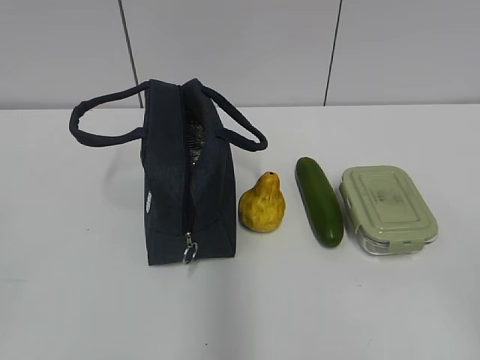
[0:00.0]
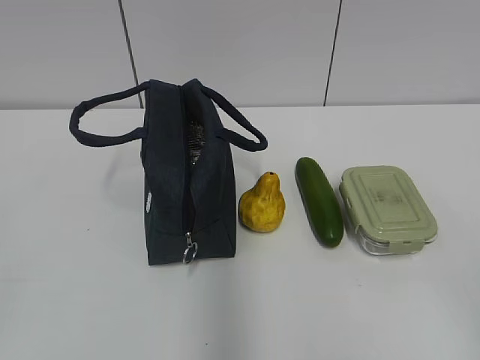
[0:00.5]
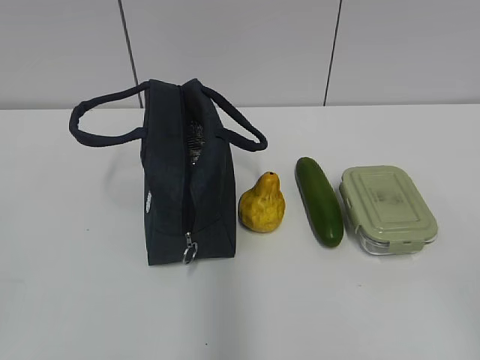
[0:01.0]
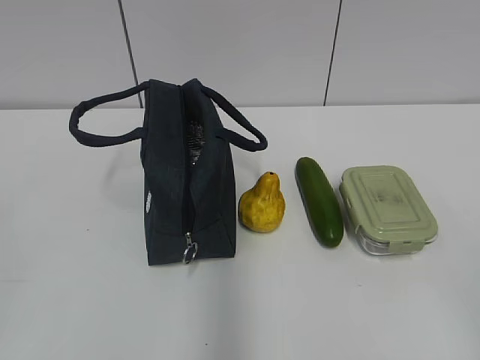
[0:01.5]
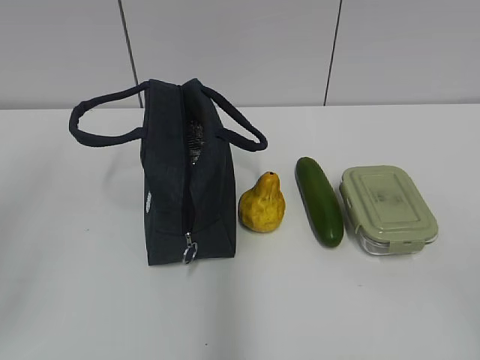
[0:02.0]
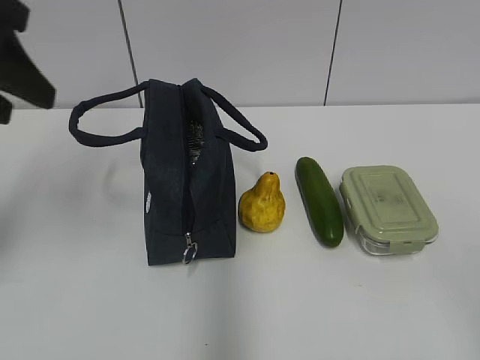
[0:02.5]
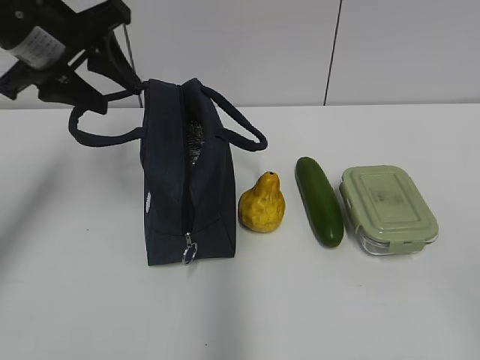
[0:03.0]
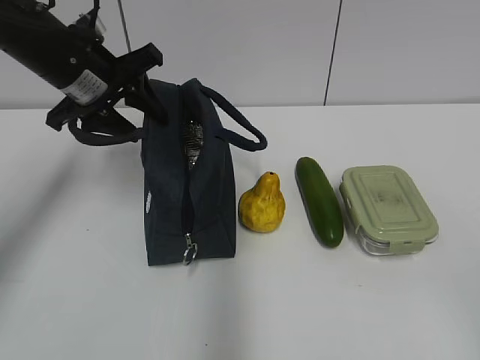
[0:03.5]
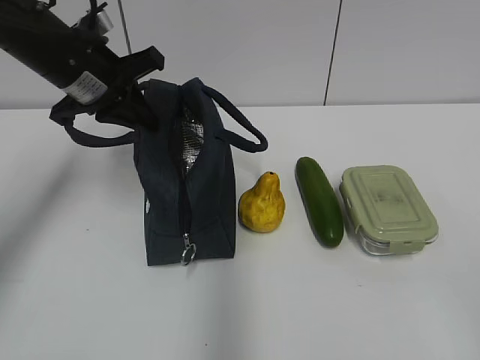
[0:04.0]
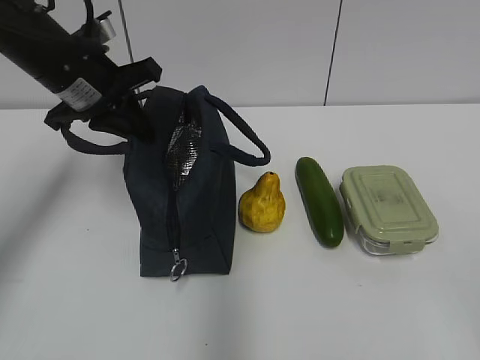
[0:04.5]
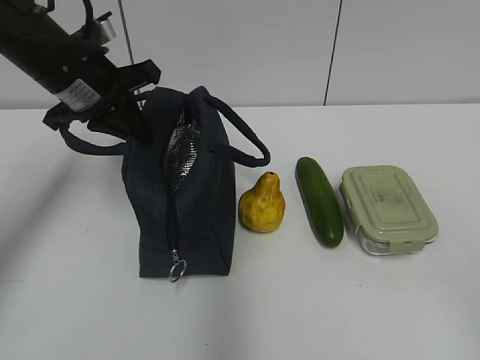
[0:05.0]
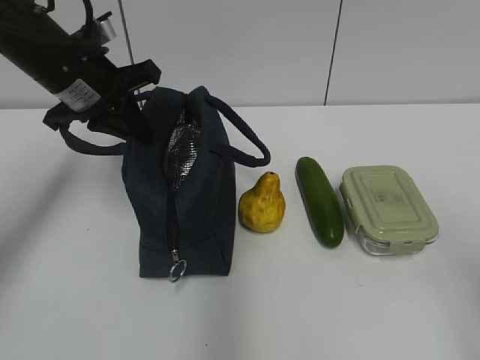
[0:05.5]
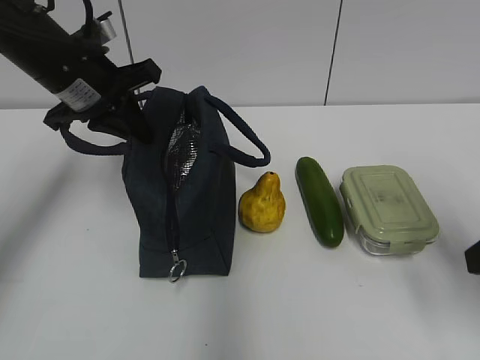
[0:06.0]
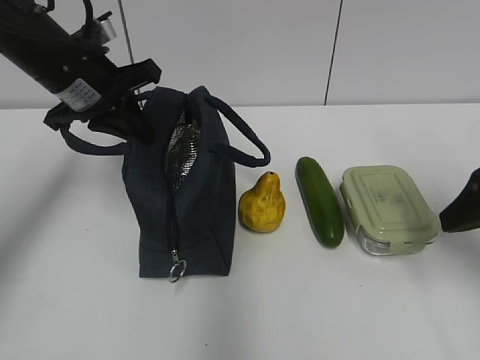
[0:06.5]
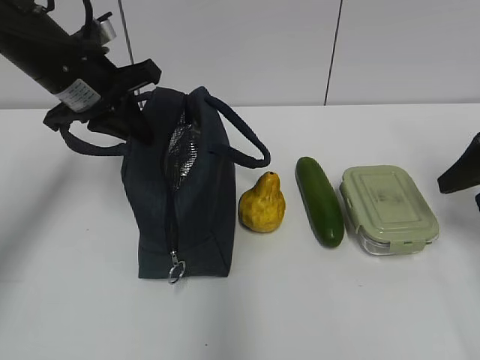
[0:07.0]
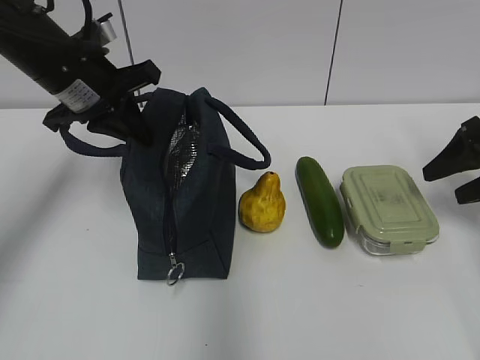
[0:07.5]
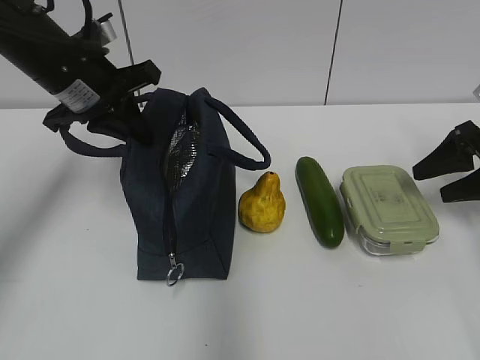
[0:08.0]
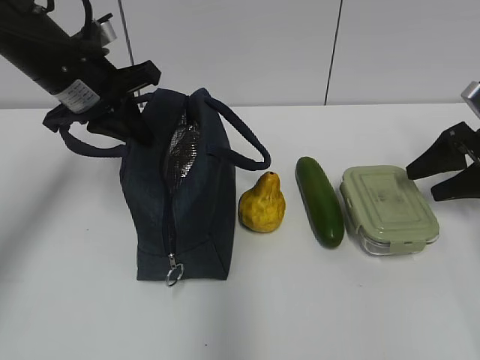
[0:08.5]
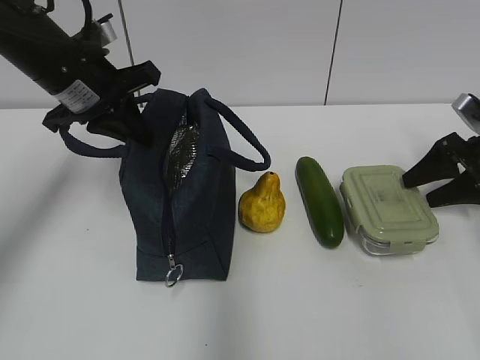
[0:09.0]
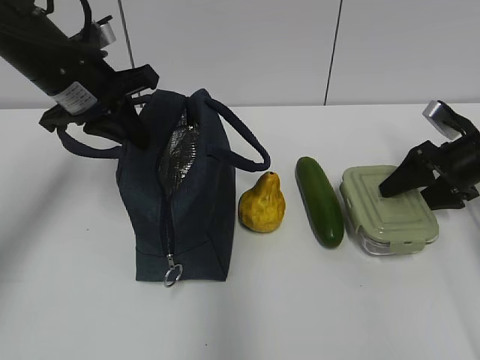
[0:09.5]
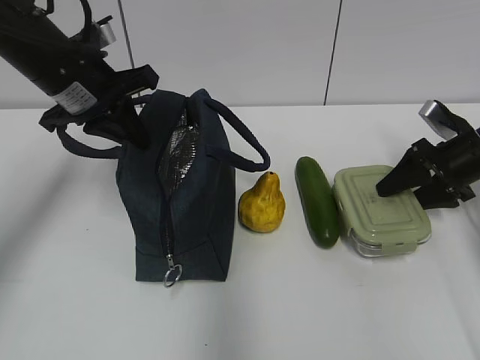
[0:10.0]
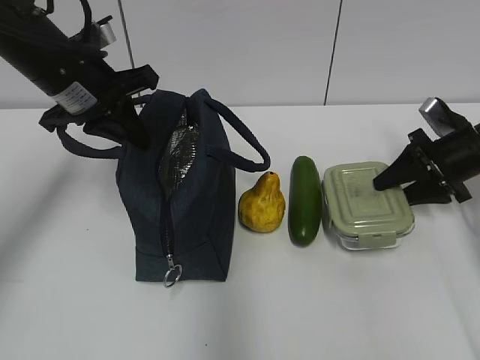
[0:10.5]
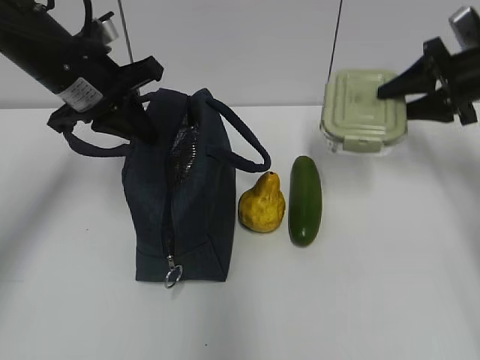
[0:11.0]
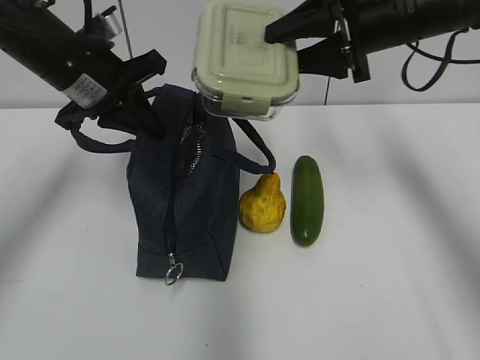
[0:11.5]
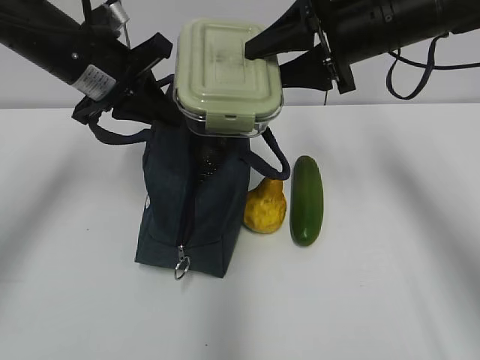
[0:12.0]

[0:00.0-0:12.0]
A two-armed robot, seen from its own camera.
0:02.0 to 0:04.0: The left gripper moves forward, some 30 cm, and closes.
0:04.0 to 0:06.0: The right gripper heads forward, covering about 20 cm.
0:06.0 to 0:08.0: The right gripper moves forward and to the right, approximately 20 cm.
0:08.0 to 0:10.0: The right gripper changes place by some 5 cm.
0:10.0 to 0:12.0: The right gripper shifts roughly 25 cm to the left and upward.

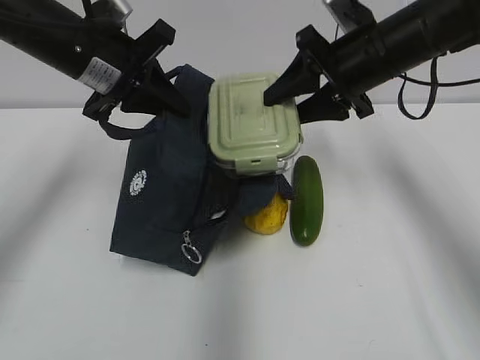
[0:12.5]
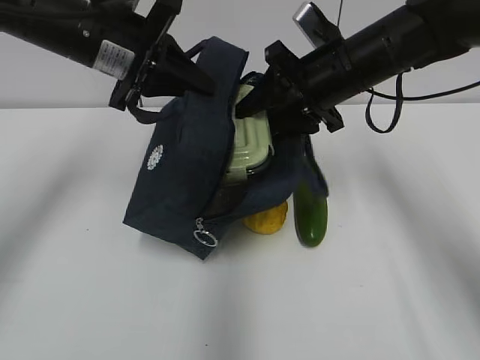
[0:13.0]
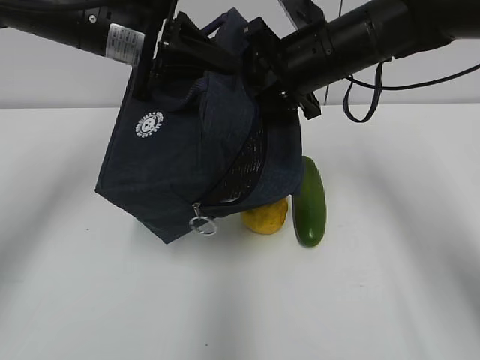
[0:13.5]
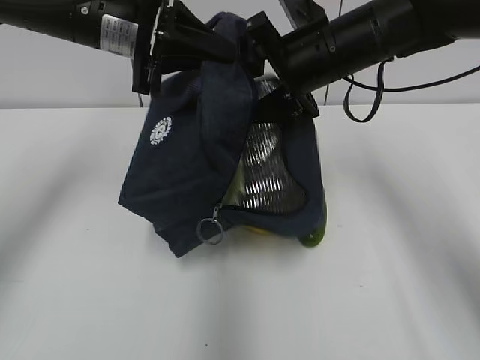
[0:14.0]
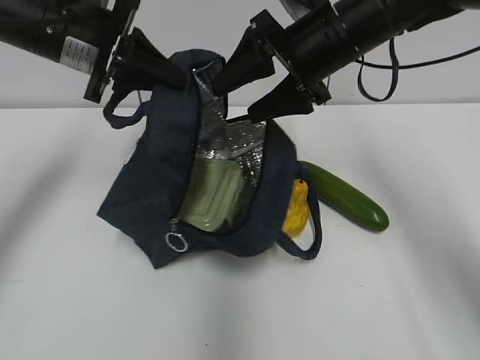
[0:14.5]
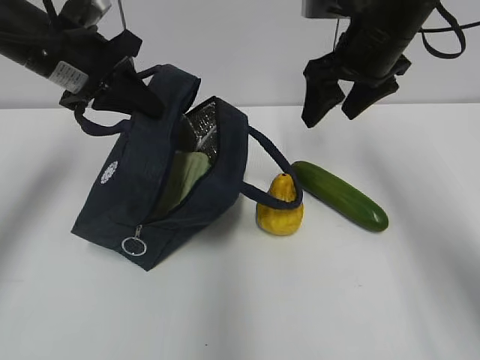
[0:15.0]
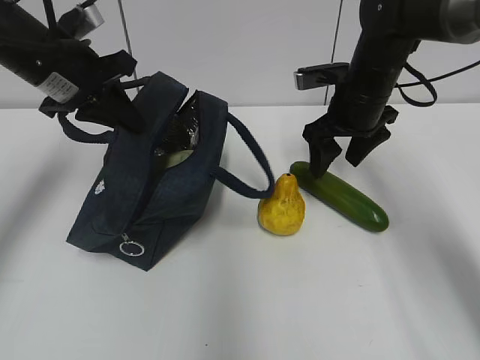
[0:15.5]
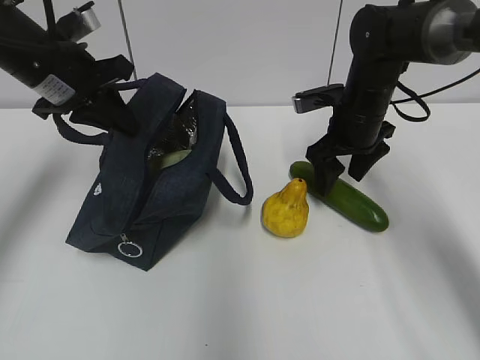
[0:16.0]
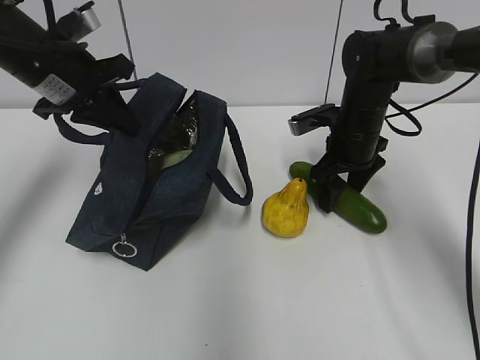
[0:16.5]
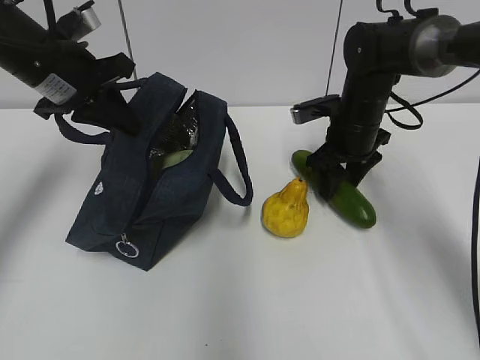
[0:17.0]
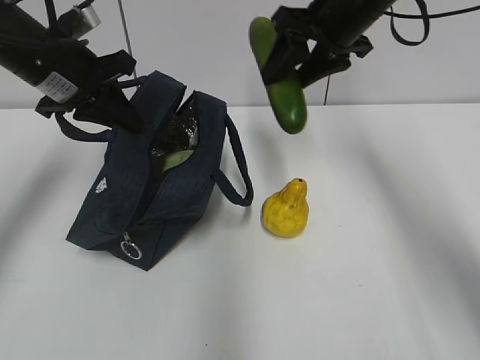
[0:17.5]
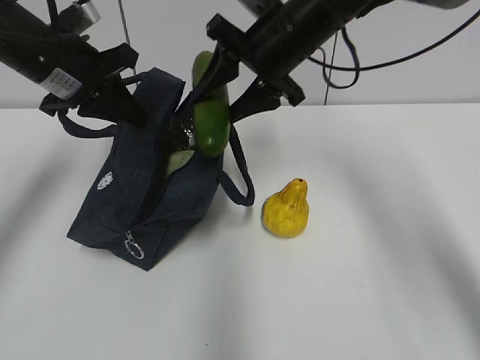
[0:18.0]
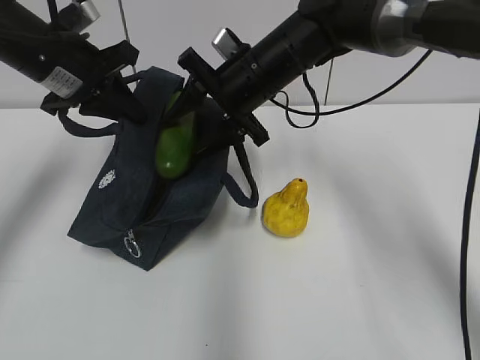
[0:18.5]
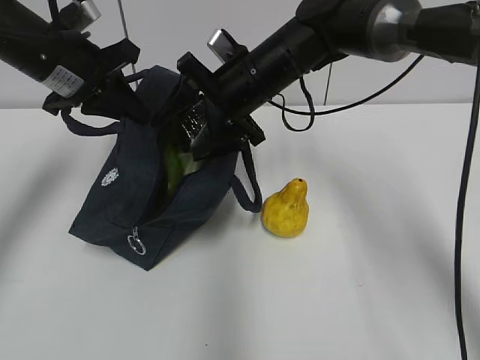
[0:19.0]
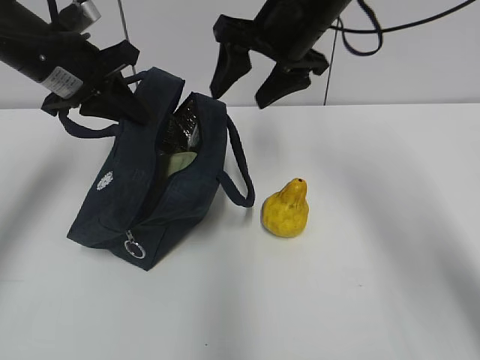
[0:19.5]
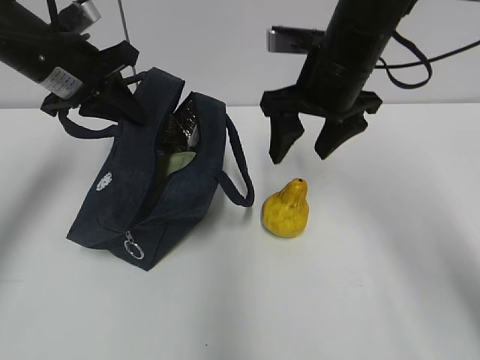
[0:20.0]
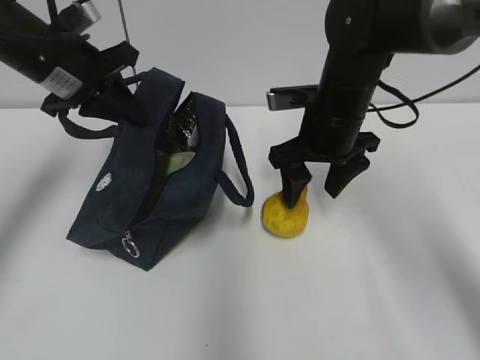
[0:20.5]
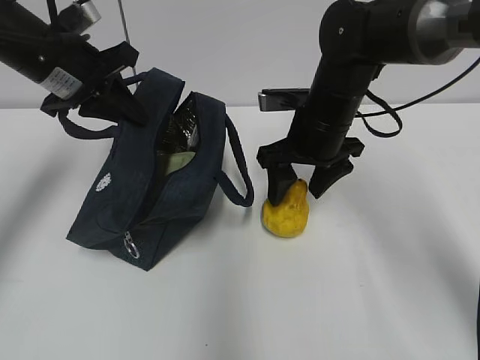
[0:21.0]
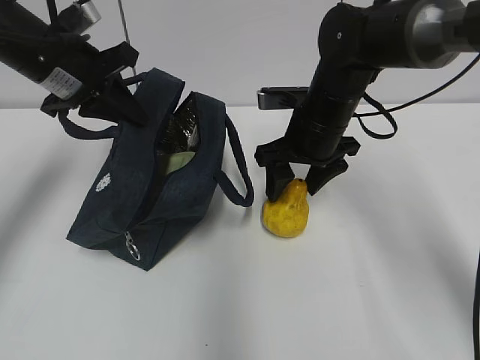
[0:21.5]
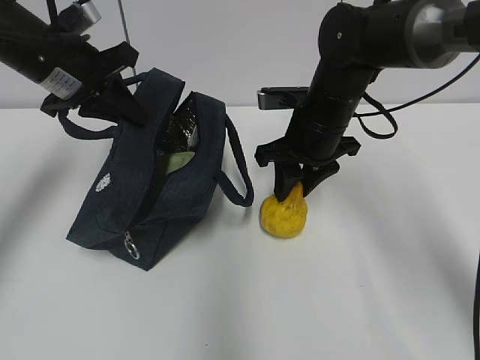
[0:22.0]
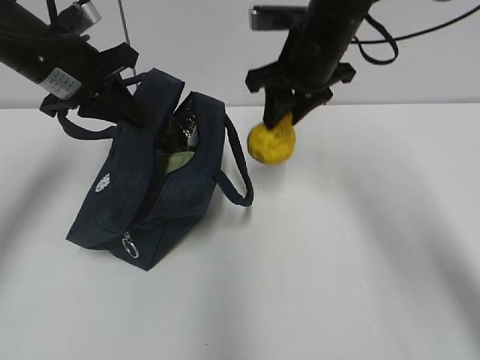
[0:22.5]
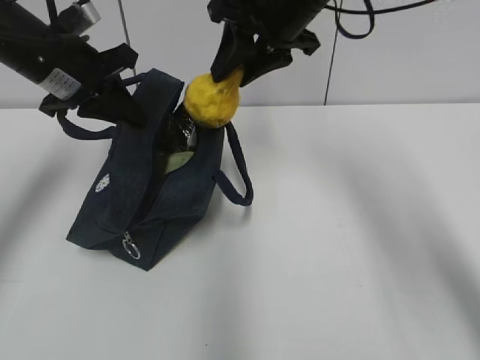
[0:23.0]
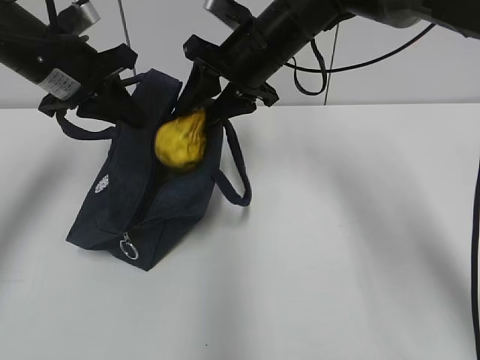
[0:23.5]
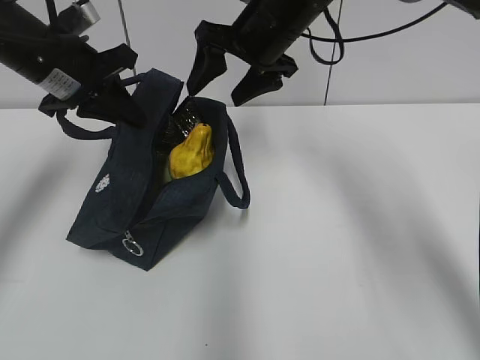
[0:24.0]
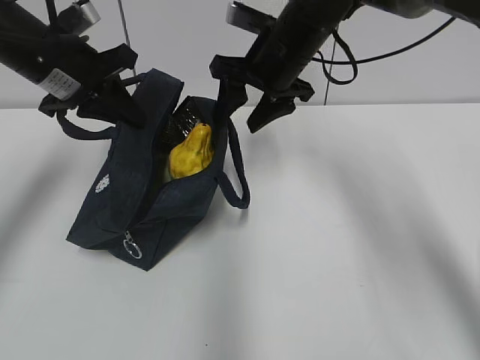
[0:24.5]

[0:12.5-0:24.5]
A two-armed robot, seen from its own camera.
0:12.5 to 0:14.5: The right gripper shifts by about 5 cm, and opens its fingers.
0:14.5 to 0:16.5: The right gripper is displaced downward and to the right by approximately 15 cm.
0:16.5 to 0:18.5: The right gripper goes approximately 15 cm to the left and upward.
0:18.5 to 0:20.5: The right gripper goes some 10 cm to the right, and goes upward and returns, roughly 5 cm each way.
0:20.5 to 0:22.5: The right gripper moves upward, about 5 cm, and closes its fingers.

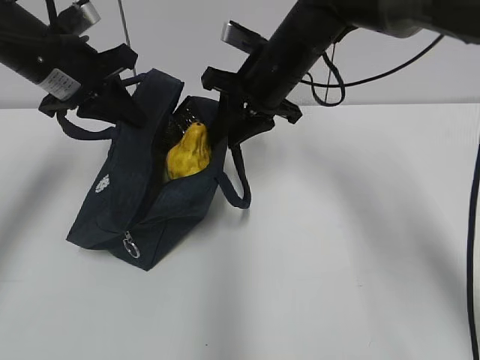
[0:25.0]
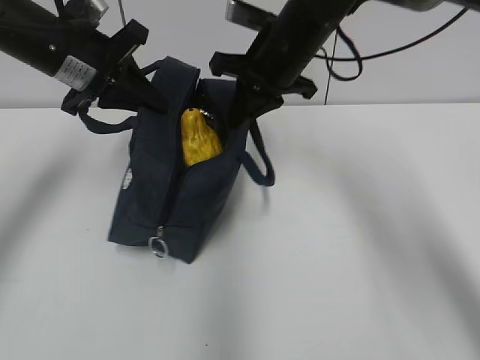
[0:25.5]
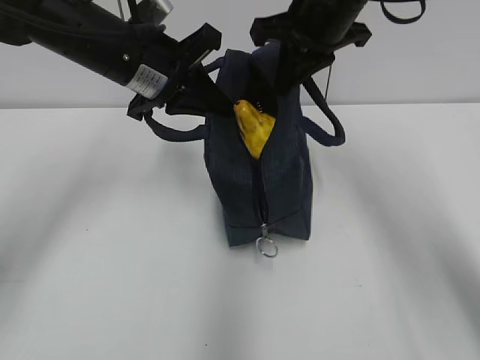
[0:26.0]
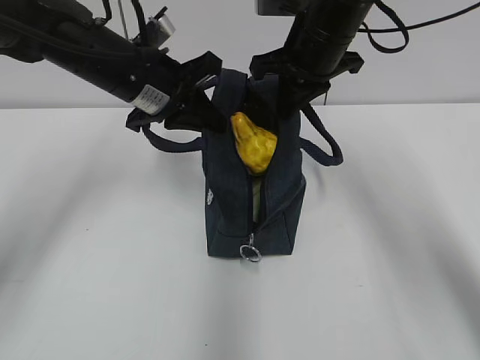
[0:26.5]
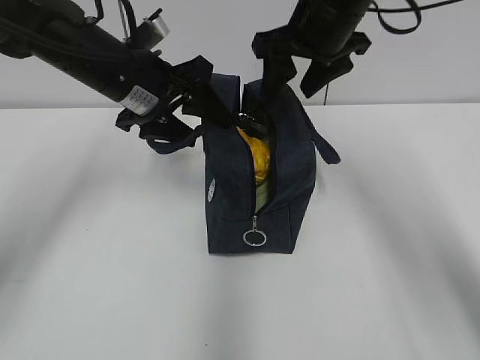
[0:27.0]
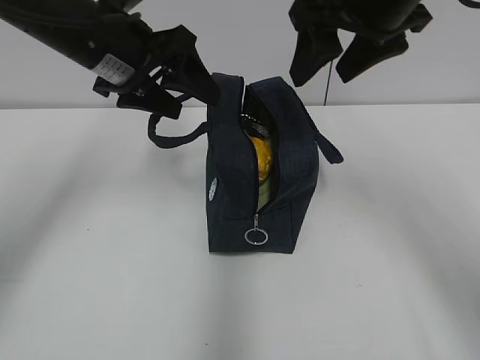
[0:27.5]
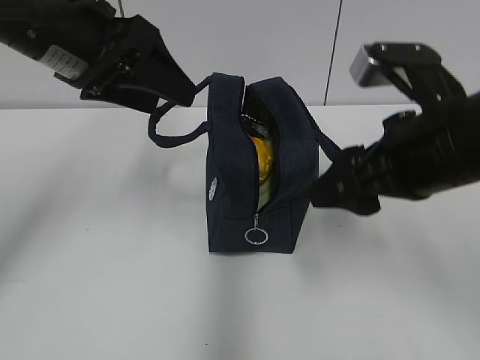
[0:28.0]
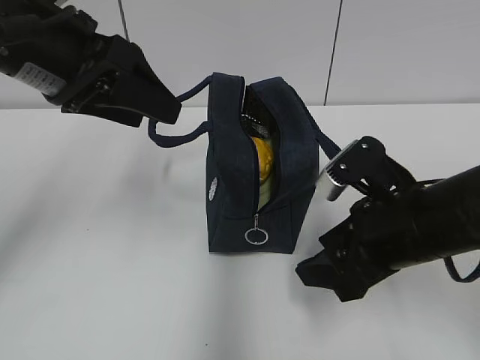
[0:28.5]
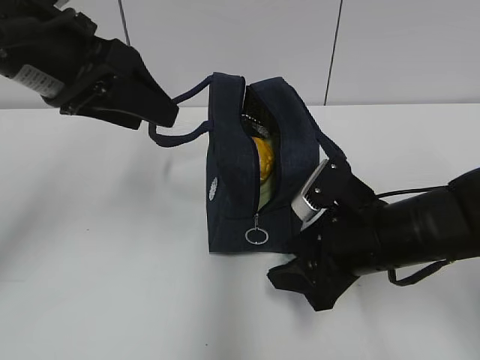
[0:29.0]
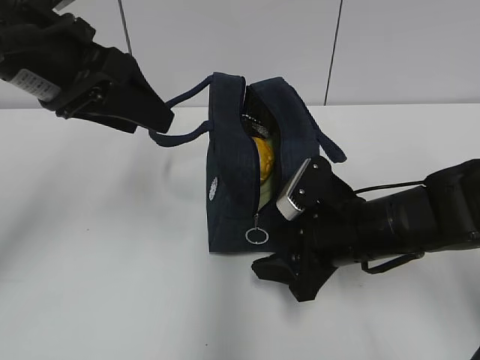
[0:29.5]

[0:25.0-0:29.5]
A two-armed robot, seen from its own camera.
0:25.0 to 0:27.0: The right gripper moves upward, approximately 5 cm, and opens up, while the left gripper shifts roughly 10 cm to the right, and opens up.
0:27.0 to 0:29.5: The right gripper goes approximately 25 cm downward and backward, while the left gripper goes roughly 10 cm backward and upward.
